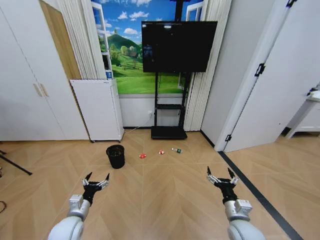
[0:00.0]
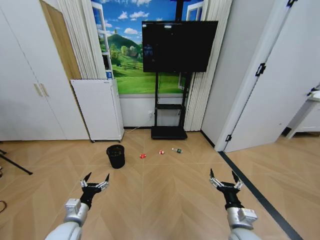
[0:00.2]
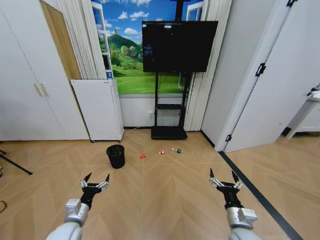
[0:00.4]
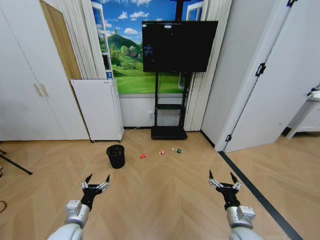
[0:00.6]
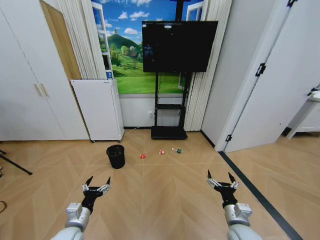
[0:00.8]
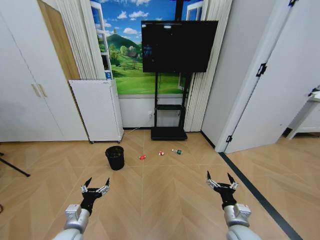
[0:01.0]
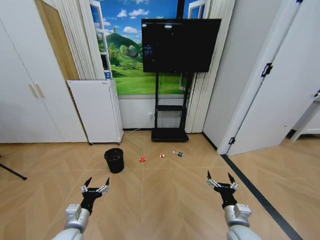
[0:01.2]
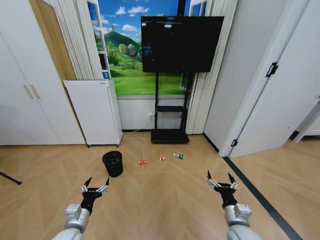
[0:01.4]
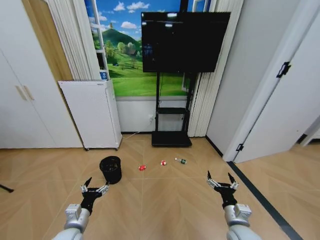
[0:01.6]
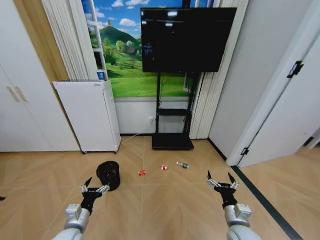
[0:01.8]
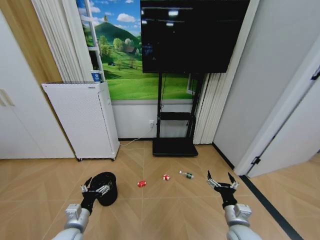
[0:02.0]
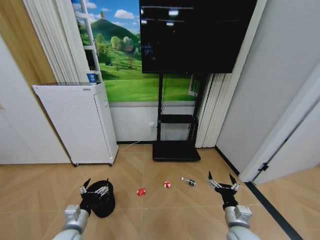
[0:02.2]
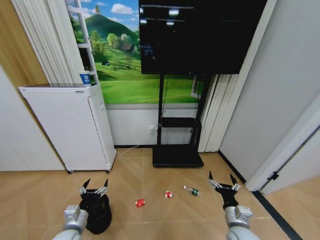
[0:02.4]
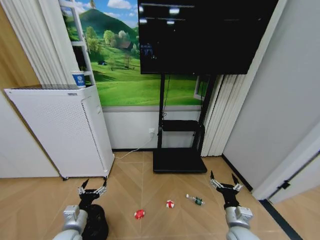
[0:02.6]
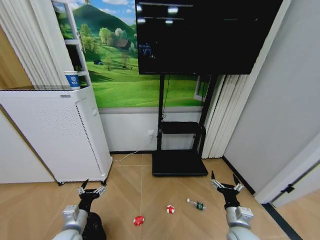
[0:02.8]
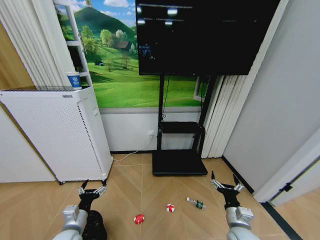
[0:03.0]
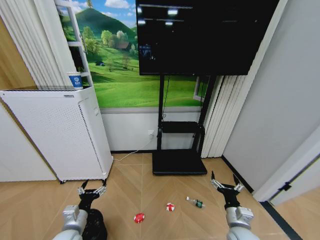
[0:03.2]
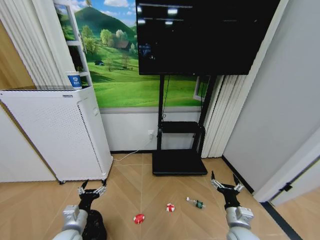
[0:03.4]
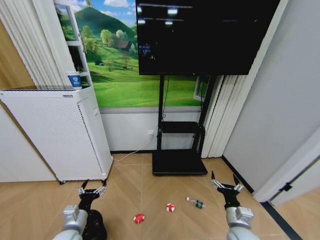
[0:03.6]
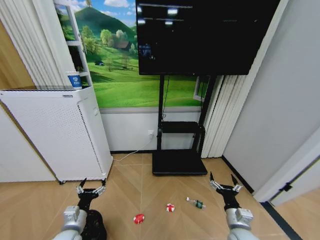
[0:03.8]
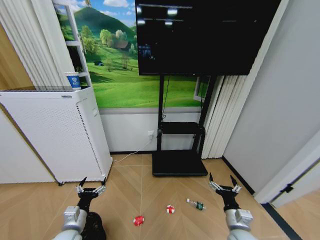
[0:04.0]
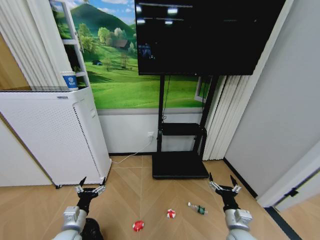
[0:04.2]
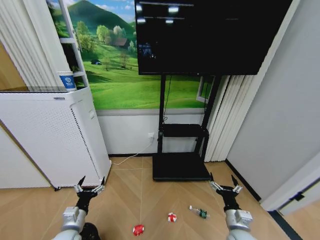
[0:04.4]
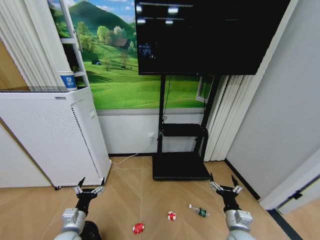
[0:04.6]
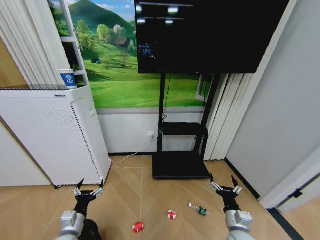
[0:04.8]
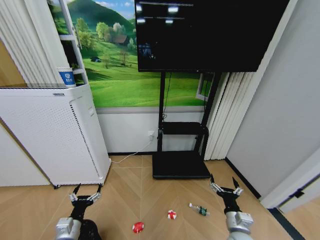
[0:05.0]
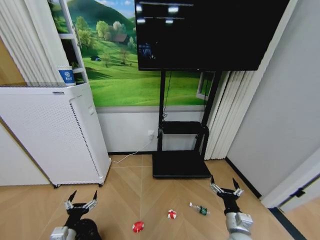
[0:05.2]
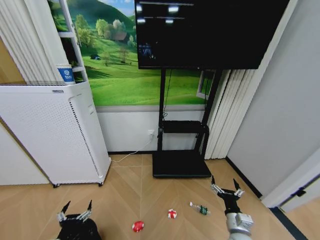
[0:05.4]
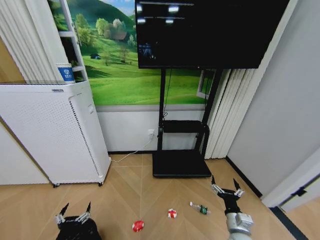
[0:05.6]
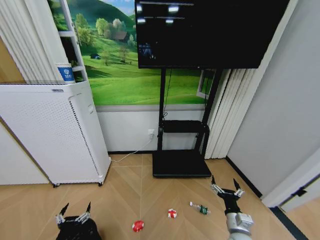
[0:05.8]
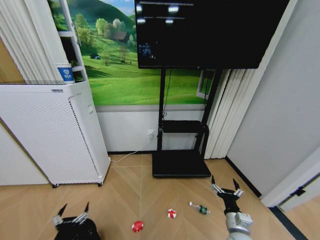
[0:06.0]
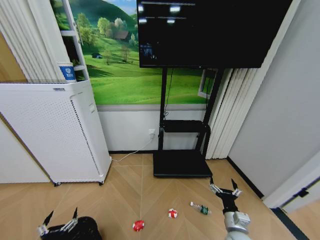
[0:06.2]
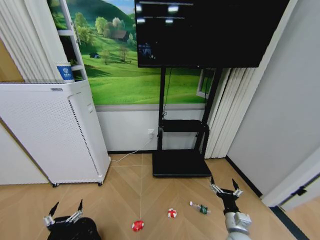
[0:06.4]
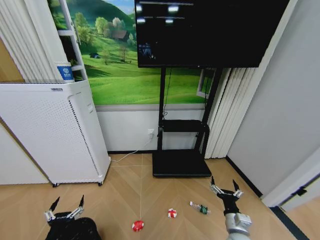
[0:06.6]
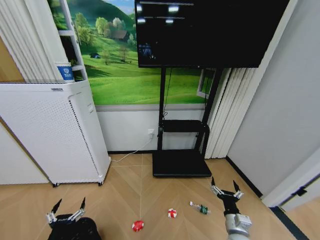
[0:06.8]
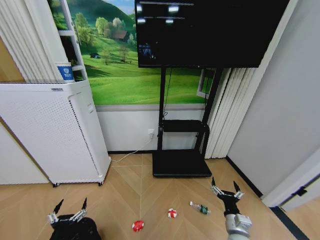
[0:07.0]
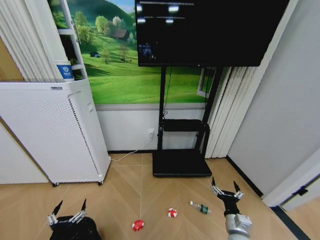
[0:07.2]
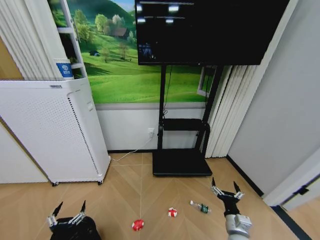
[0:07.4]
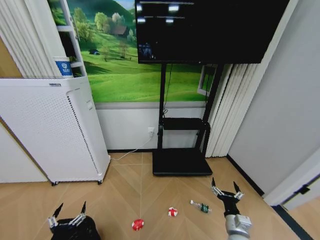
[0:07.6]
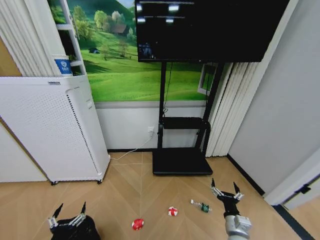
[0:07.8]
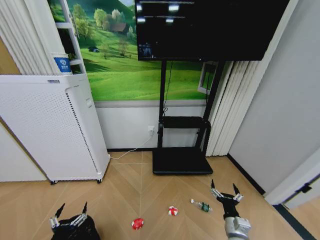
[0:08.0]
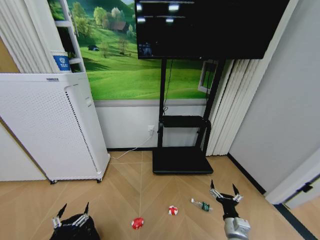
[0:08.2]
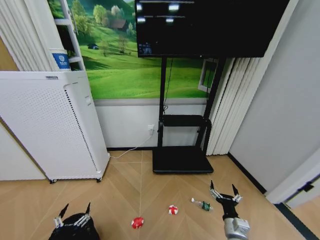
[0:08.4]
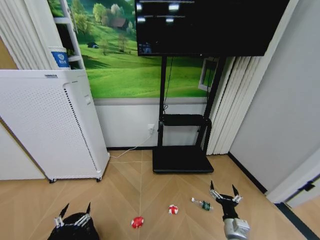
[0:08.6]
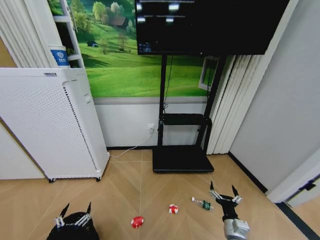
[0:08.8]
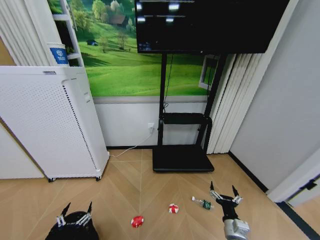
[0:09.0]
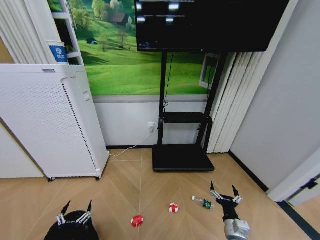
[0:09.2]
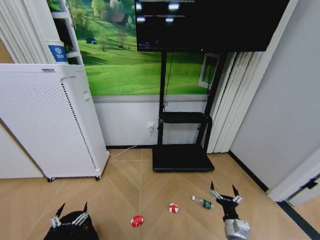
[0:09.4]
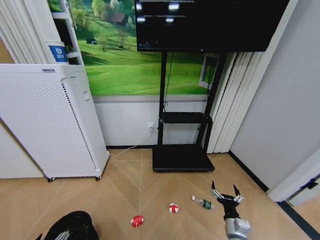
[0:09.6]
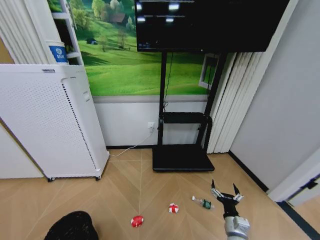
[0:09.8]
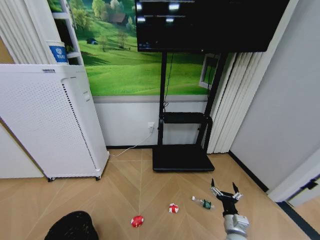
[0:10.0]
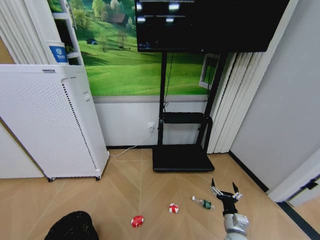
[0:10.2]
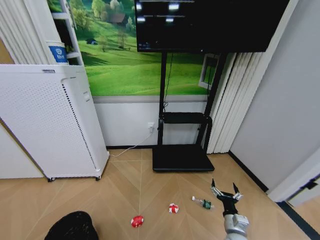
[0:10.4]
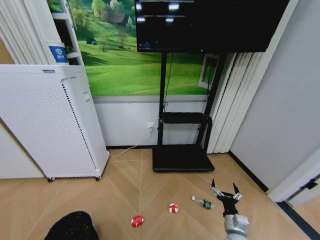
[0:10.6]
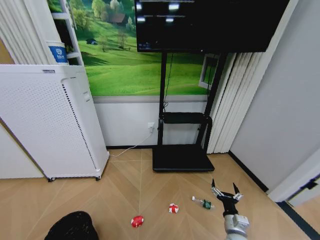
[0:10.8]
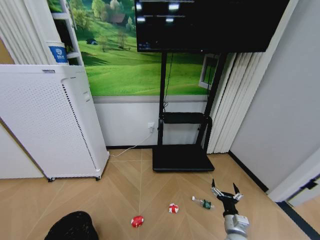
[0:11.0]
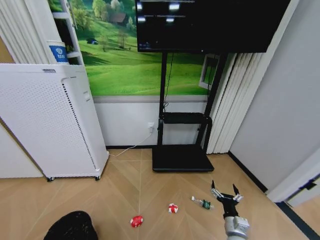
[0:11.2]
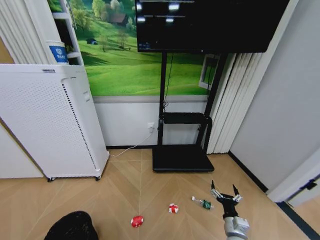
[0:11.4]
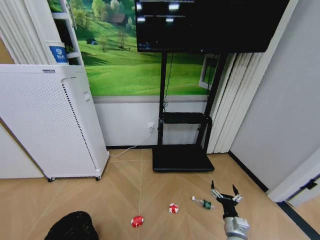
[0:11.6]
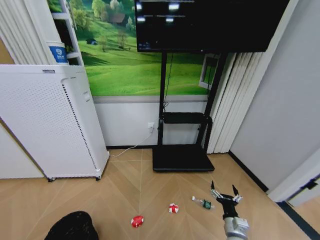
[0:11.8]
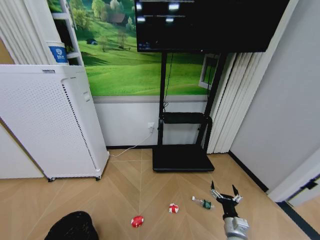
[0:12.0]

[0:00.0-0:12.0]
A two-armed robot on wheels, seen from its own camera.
Task of the whole recording: Pick up the trash bin and place the garbage on the floor into it.
0:04.4 to 0:06.0: The left gripper moves backward, some 10 cm.
0:06.0 to 0:09.0: The grippers stay close to where they were, moving slightly.
0:09.0 to 0:10.4: The left gripper moves backward, to the left and upward, approximately 10 cm.

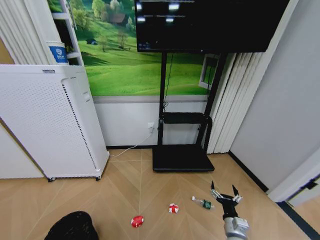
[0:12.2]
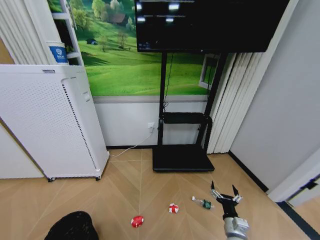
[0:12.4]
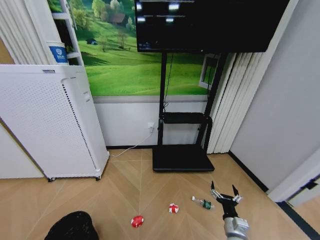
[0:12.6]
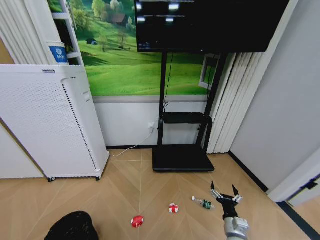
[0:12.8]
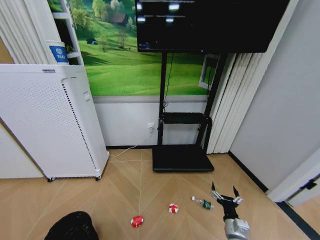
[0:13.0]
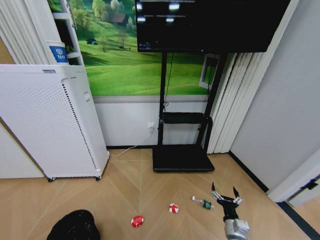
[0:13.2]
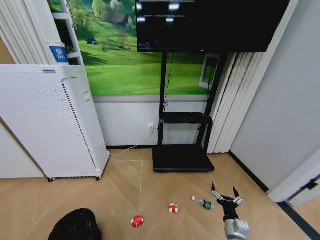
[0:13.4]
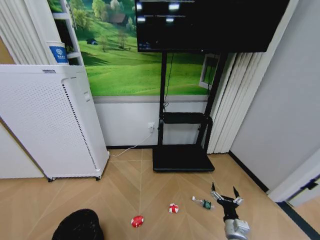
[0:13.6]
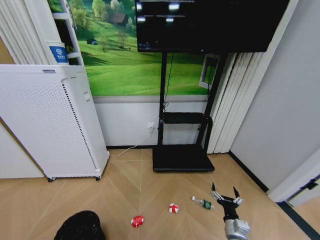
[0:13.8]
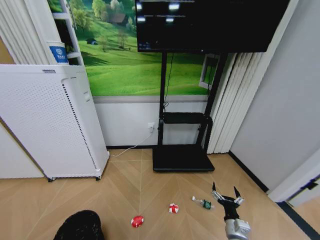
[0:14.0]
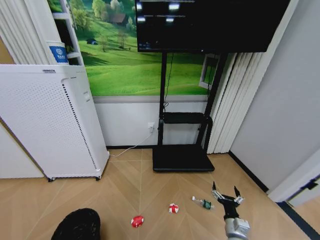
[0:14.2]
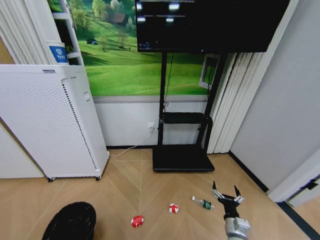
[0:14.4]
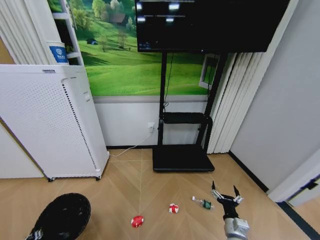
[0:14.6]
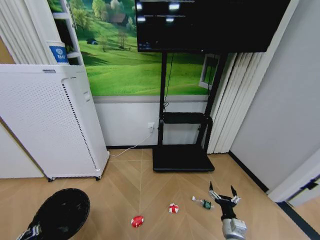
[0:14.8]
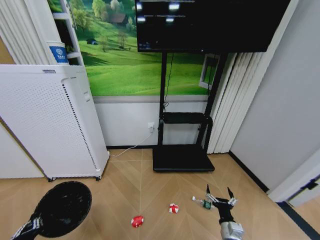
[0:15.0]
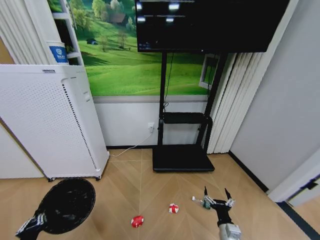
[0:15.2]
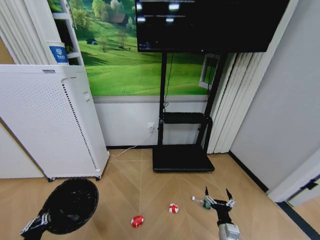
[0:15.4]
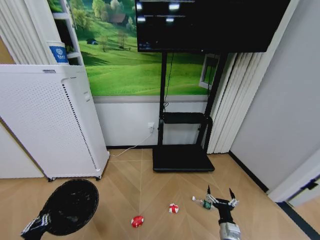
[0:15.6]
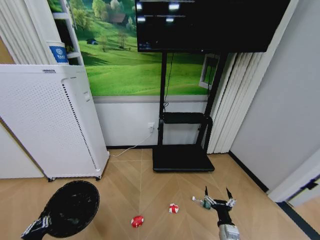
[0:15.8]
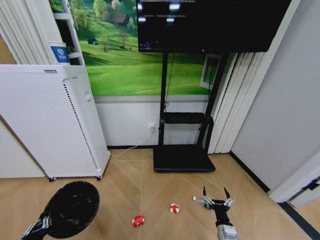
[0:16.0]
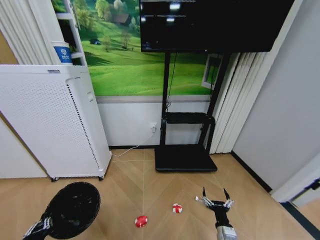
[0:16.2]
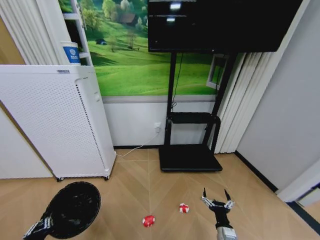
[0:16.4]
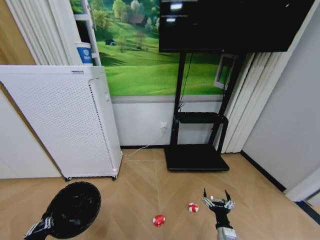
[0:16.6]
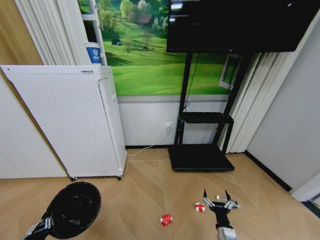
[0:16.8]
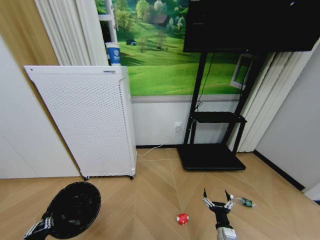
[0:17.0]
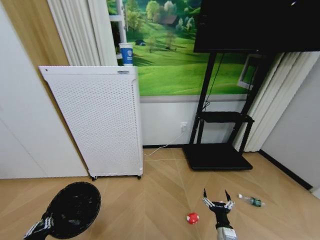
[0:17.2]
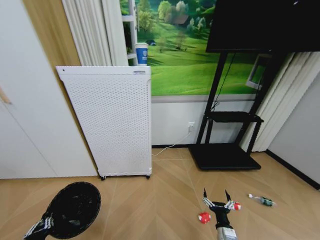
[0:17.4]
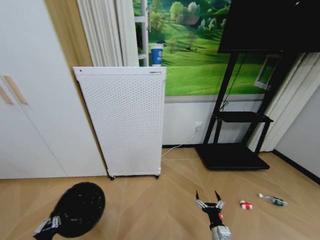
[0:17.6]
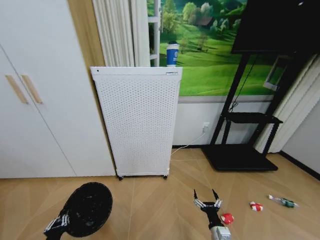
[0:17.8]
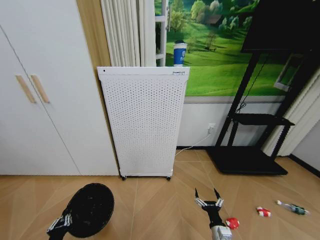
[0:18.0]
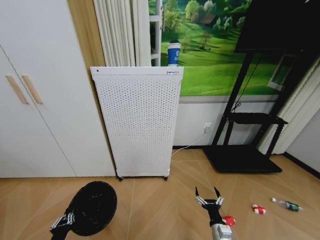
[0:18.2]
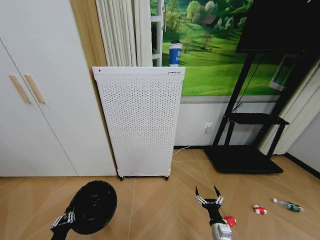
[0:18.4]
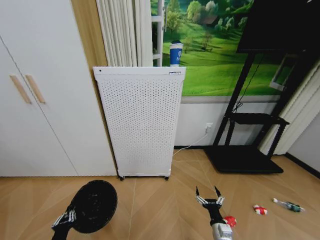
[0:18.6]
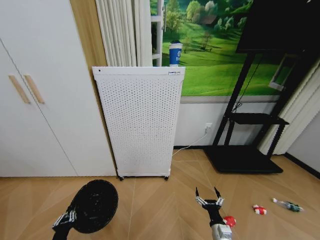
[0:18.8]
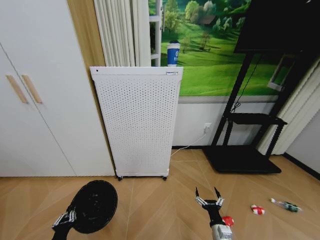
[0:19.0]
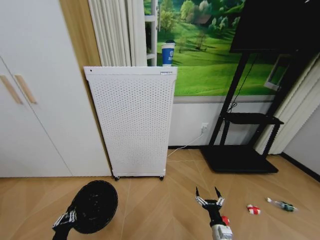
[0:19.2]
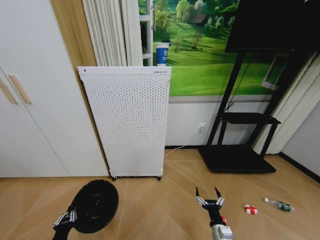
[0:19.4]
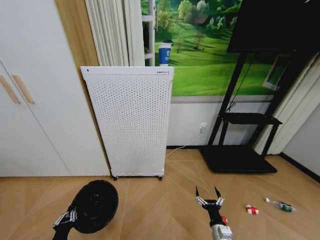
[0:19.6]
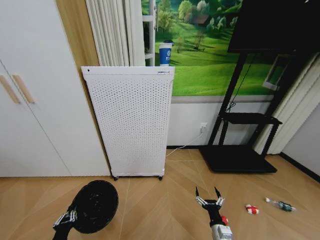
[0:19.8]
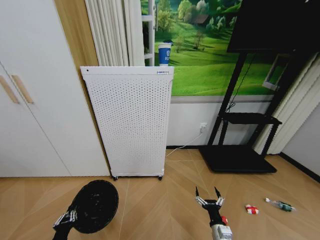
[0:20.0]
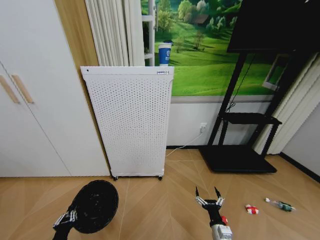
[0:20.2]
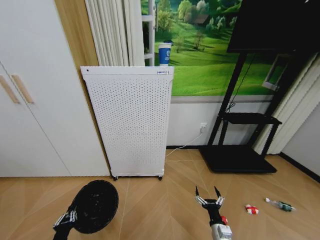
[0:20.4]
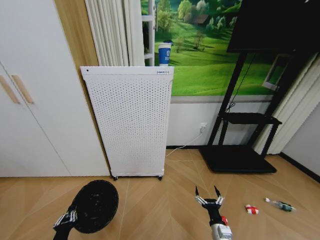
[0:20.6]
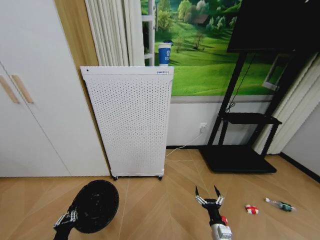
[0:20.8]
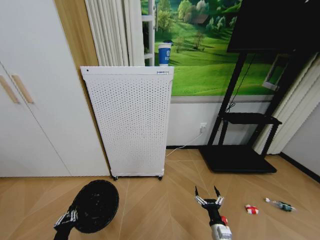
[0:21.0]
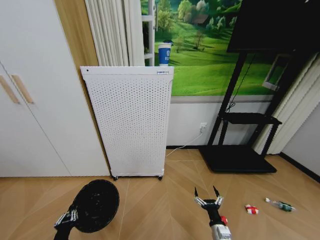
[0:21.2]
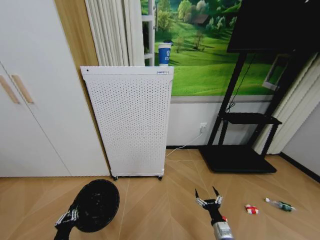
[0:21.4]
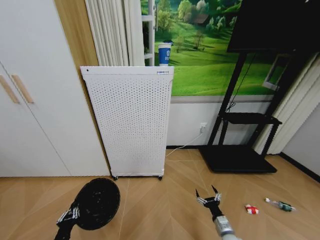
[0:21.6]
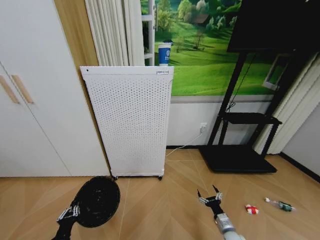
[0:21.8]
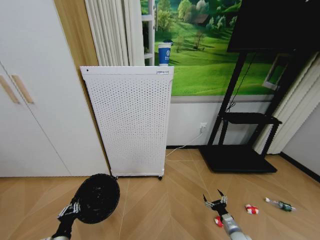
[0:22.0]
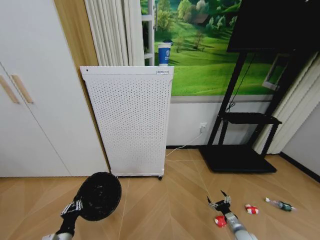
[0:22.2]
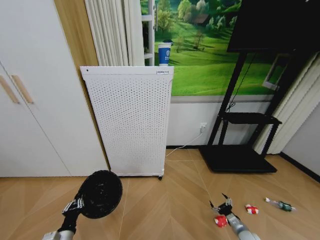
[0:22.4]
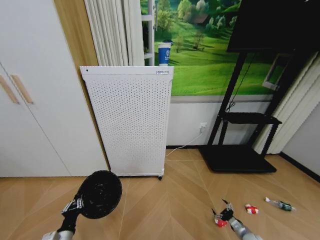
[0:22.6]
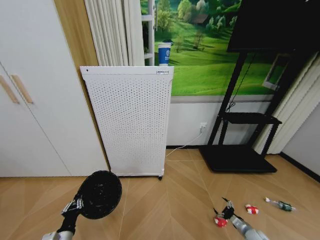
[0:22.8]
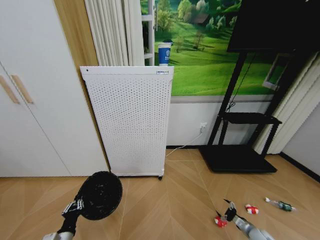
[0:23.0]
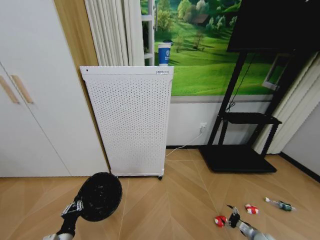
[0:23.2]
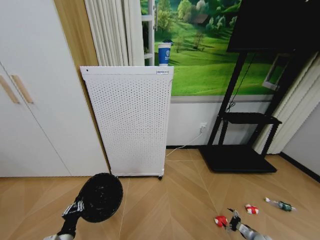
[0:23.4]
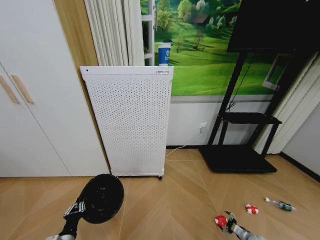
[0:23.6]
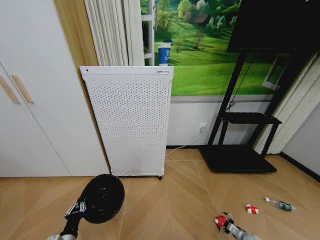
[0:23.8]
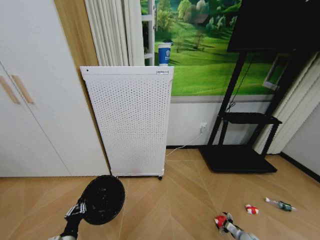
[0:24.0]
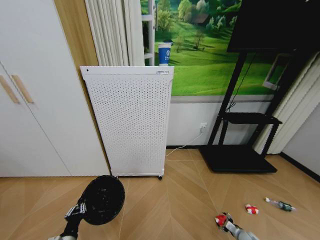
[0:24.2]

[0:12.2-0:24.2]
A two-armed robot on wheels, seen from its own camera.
Task of the whole recording: Pick up the trash bin and place the garbage on the floor into it.
0:12.2 to 0:13.8: The left gripper closes its fingers.
0:13.8 to 0:15.2: The left gripper heads upward, covering some 5 cm.
0:16.6 to 0:18.2: The left gripper shifts by approximately 5 cm.
0:18.2 to 0:21.2: The two grippers keep their place.
0:21.2 to 0:22.6: The right gripper shifts some 20 cm to the right and downward.
0:22.6 to 0:24.2: The right gripper moves downward, roughly 5 cm.
